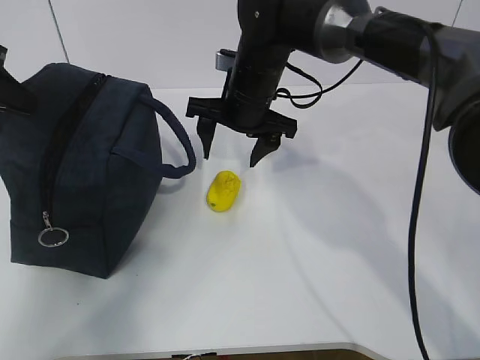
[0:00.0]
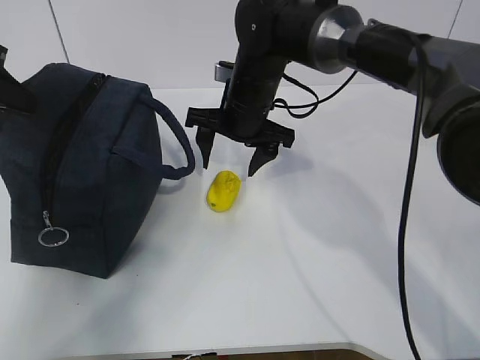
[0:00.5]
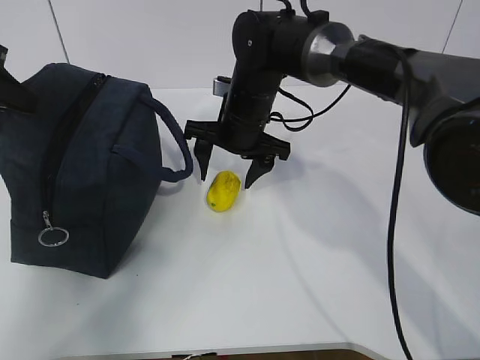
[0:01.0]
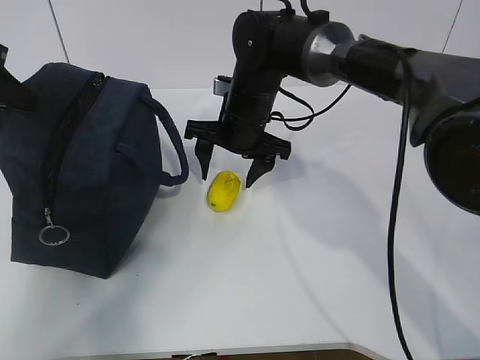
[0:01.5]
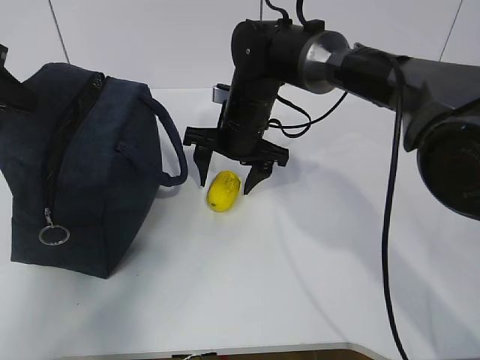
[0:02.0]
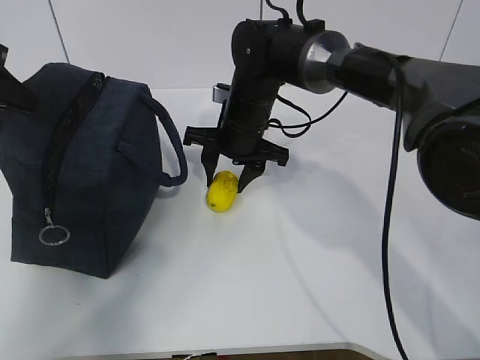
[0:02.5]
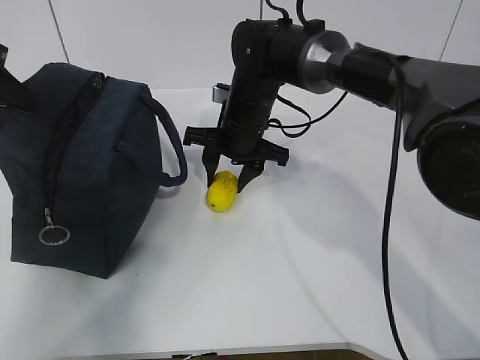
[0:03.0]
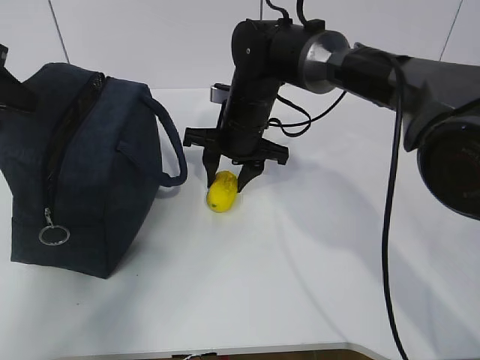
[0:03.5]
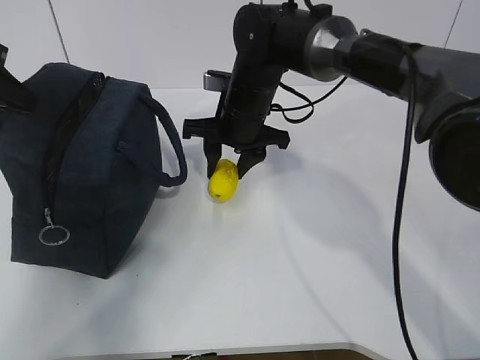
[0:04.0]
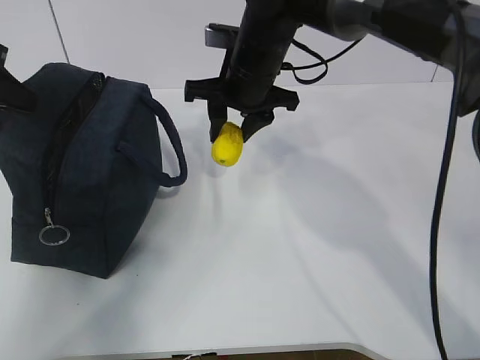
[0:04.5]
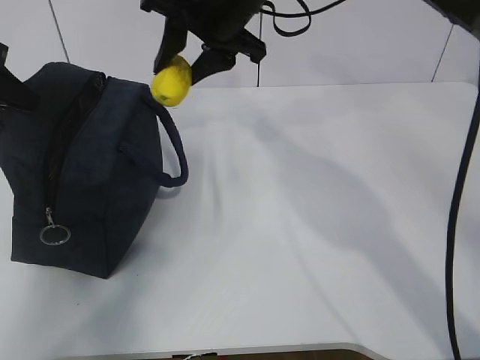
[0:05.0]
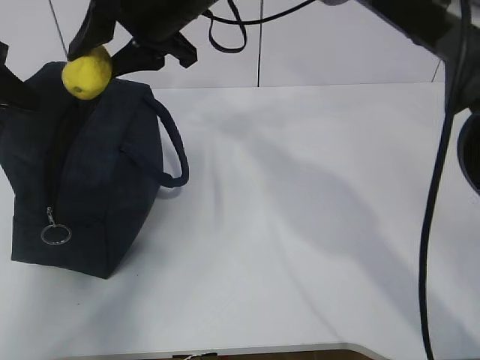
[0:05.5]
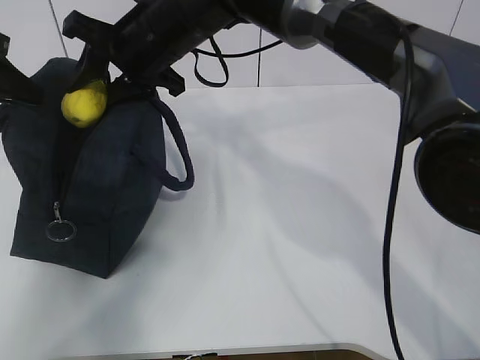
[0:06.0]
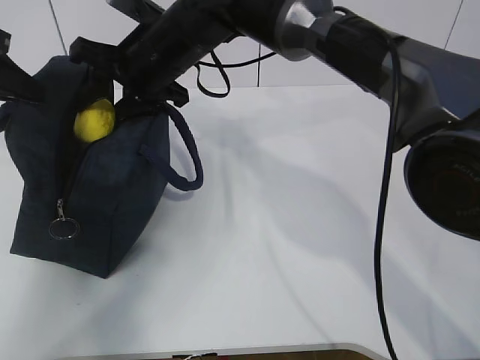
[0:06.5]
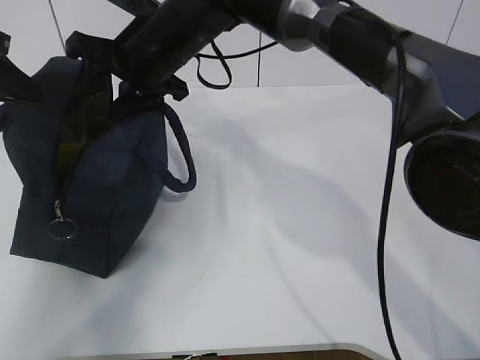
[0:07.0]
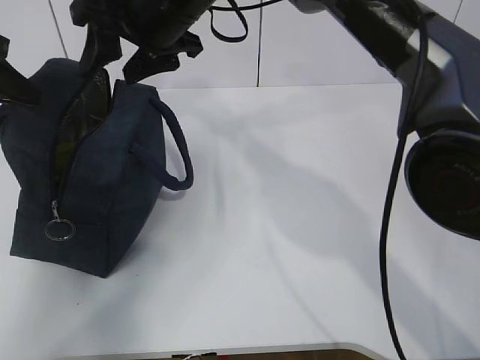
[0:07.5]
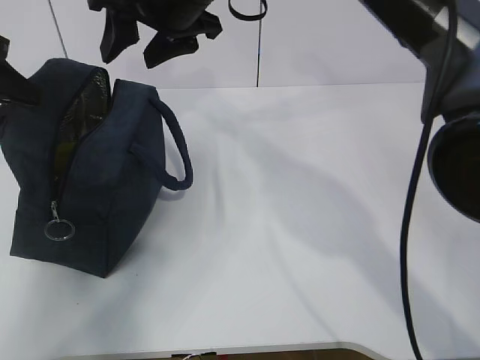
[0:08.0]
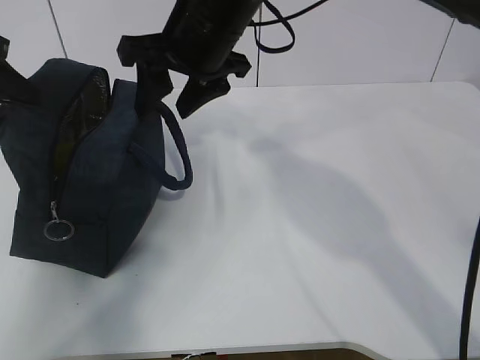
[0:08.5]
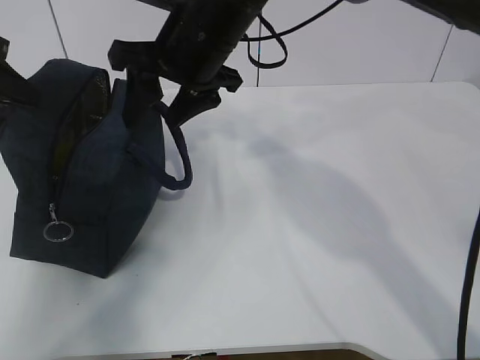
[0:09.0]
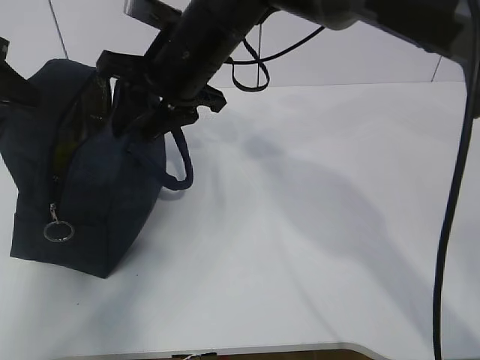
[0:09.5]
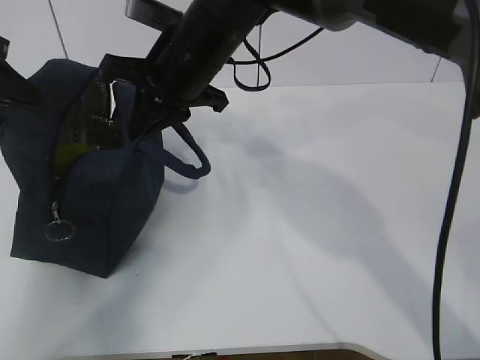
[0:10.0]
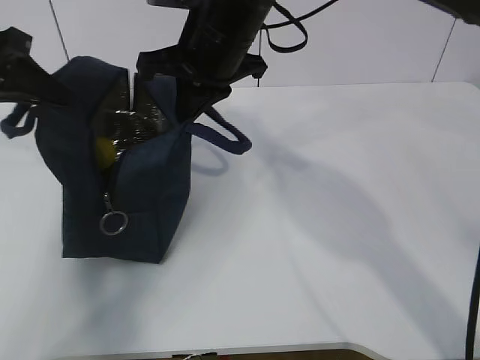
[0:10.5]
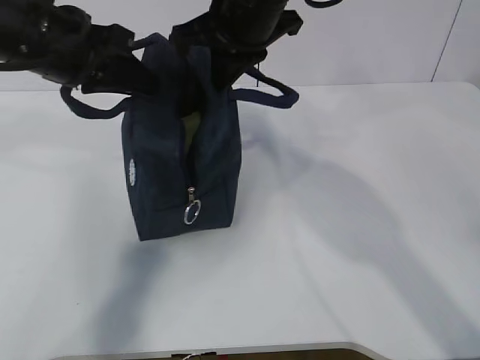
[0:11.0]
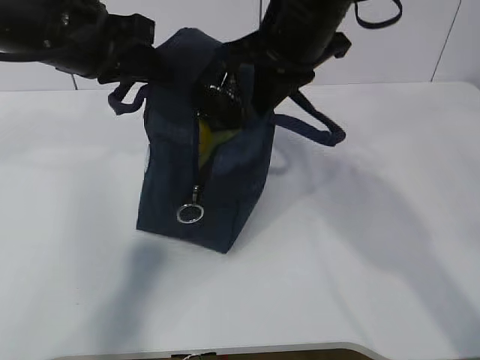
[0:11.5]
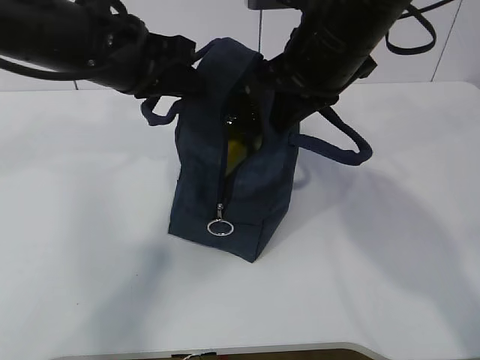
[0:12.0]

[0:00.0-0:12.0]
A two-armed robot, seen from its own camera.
Step, 0:01.0 to 0:03.0: Grab the lunch bag with your right hand.
Step, 0:03.5 to 0:06.5: Move the lunch bag to the right.
0:00.0 to 0:02.0: There are only small adjustments of the grippers.
0:02.0 to 0:04.0: The right gripper closes up.
0:04.0 to 0:06.0: The right gripper travels upward and to the left by roughly 15 cm.
0:06.0 to 0:08.0: The right gripper shifts by approximately 5 cm.
0:08.0 to 0:10.0: The right gripper moves downward, approximately 5 cm, and closes up.
0:10.0 to 0:12.0: The left gripper goes about 20 cm to the right. The right gripper is displaced to the right and backward by roughly 15 cm.

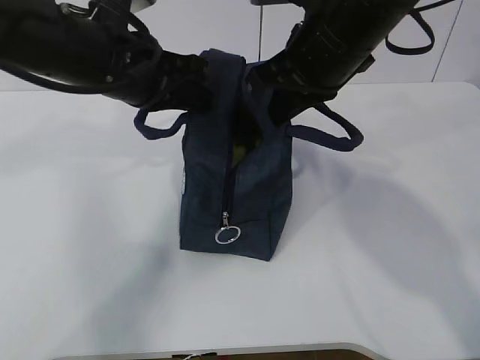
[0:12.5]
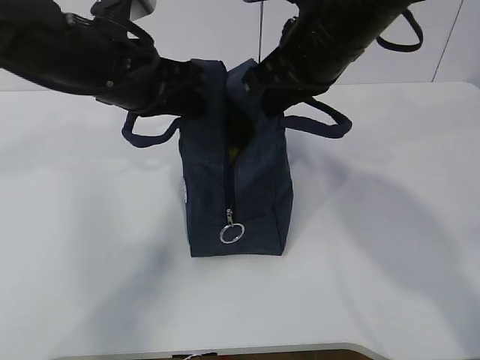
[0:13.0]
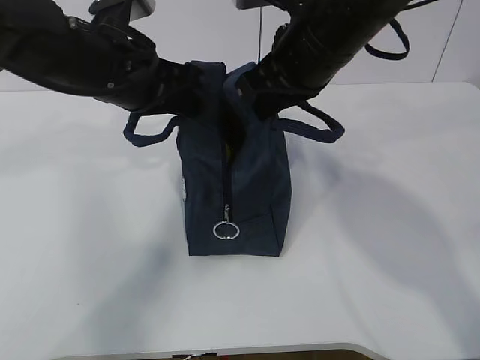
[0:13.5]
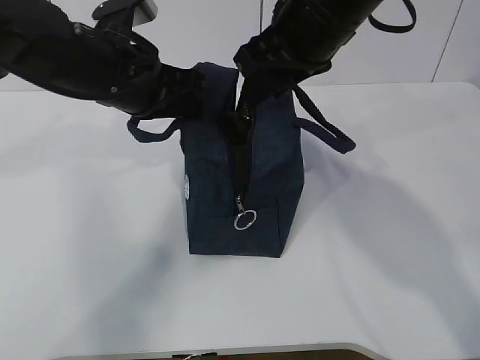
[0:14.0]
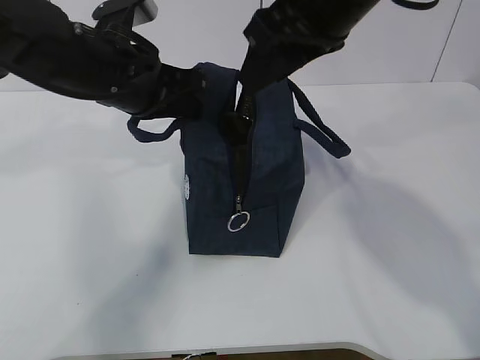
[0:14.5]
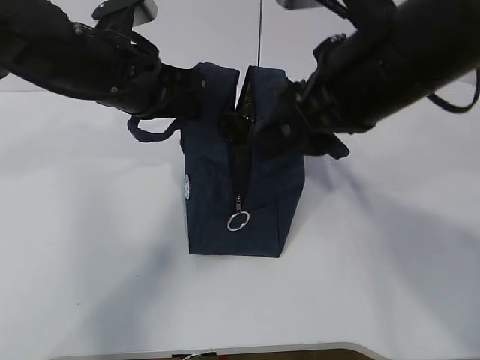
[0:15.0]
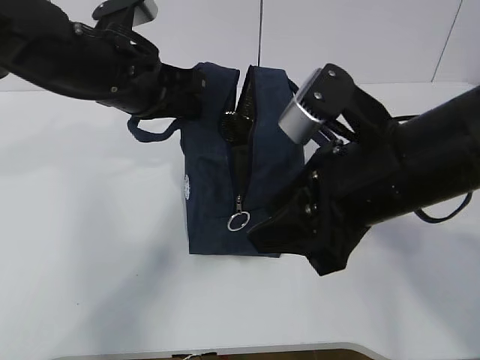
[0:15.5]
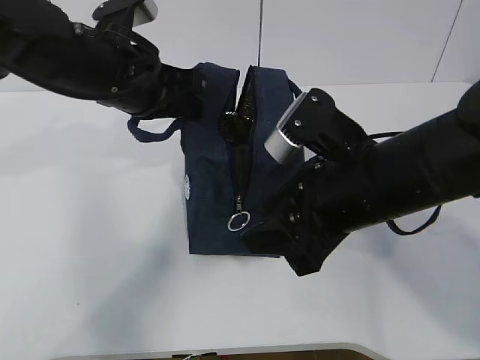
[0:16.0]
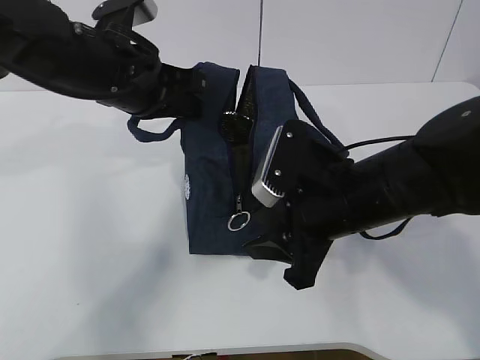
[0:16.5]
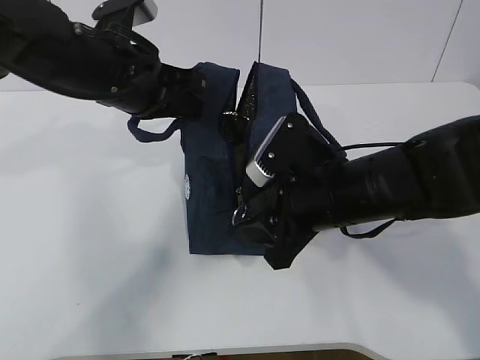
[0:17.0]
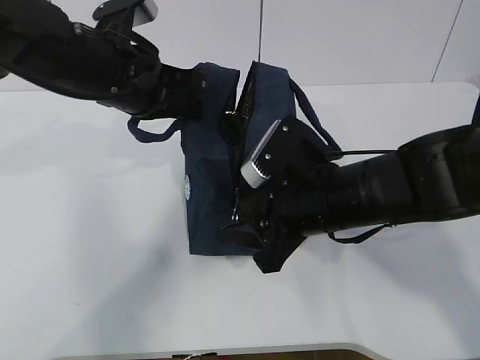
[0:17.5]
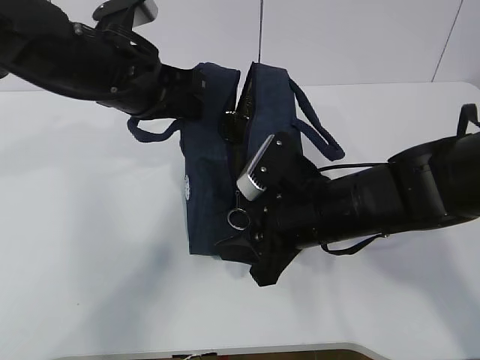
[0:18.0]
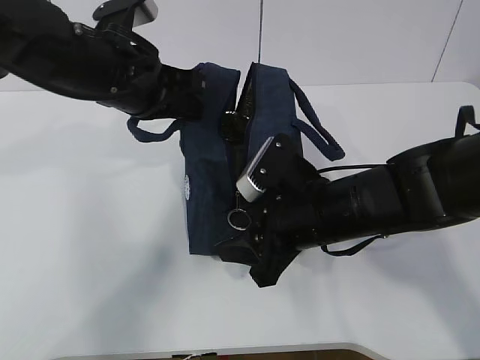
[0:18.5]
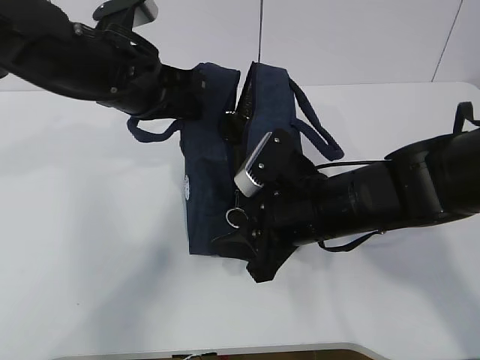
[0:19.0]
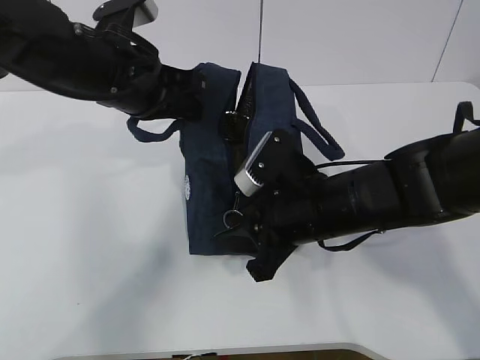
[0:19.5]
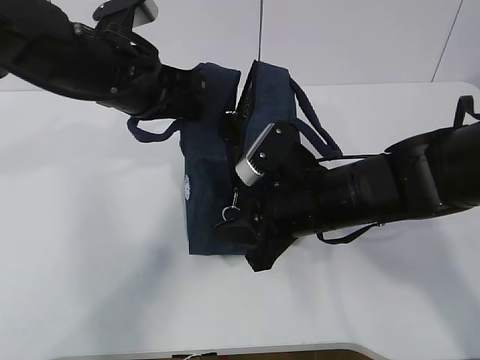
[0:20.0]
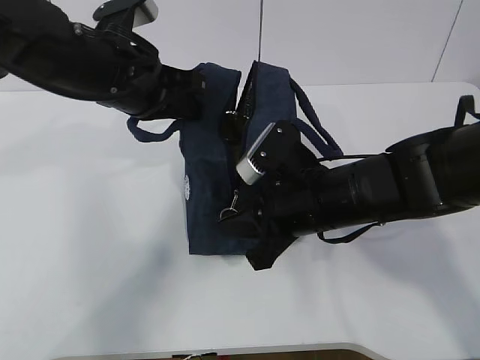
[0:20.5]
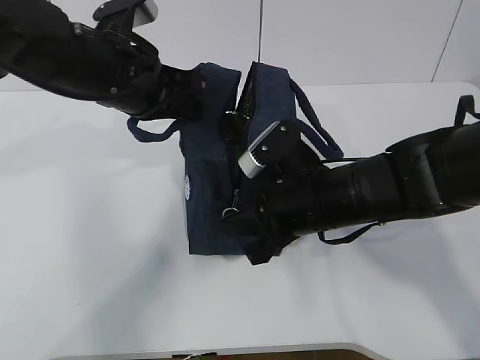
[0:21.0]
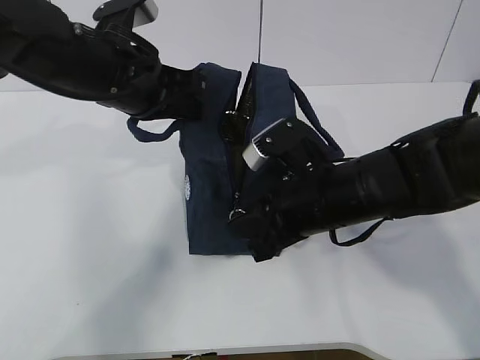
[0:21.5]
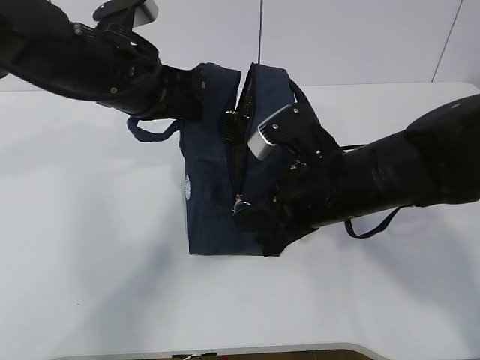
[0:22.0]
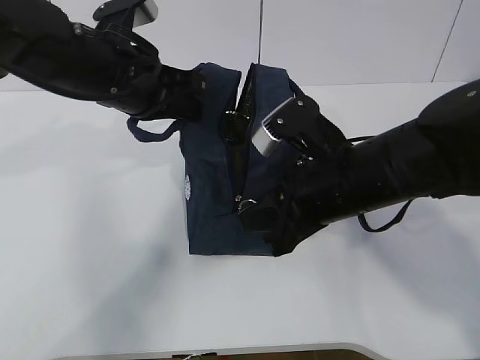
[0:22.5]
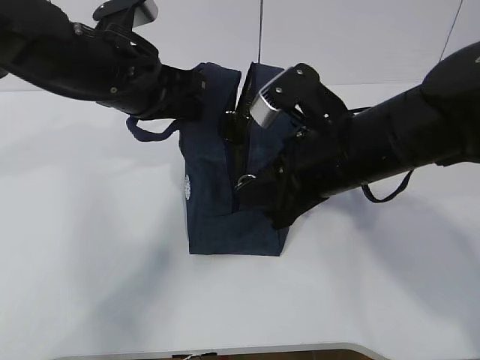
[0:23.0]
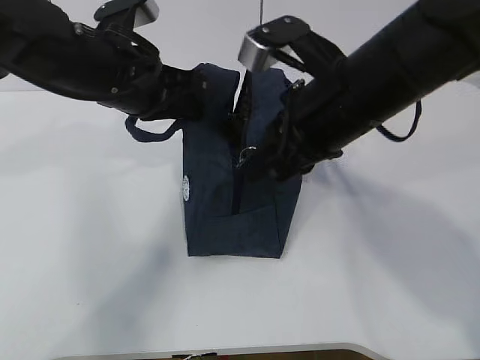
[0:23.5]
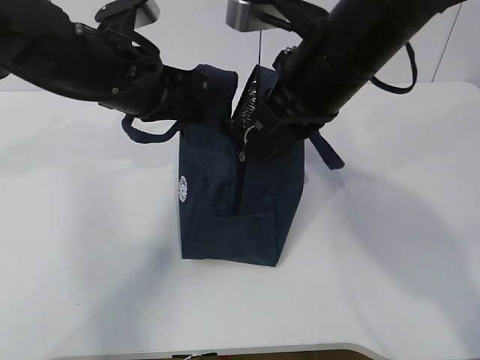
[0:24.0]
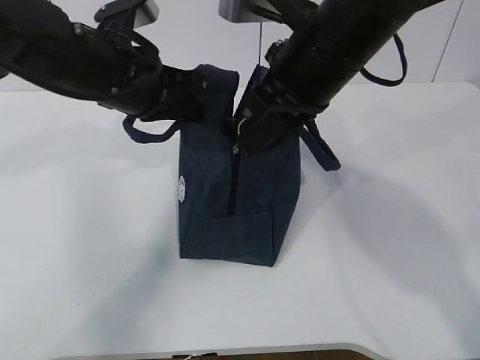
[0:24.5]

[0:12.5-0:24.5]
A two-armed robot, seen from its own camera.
0:12.5 to 0:14.5: The right gripper changes place by about 5 cm, and opens its fingers.
0:14.5 to 0:16.5: The right gripper shifts approximately 15 cm downward.
0:16.5 to 0:18.5: There are only small adjustments of the grippers.
0:18.5 to 0:20.5: The right gripper closes its fingers.
0:20.5 to 0:22.5: The grippers make only small movements.
0:22.5 to 0:24.5: The right gripper heads upward, covering about 10 cm.

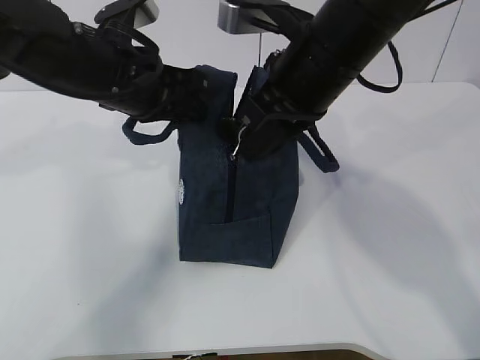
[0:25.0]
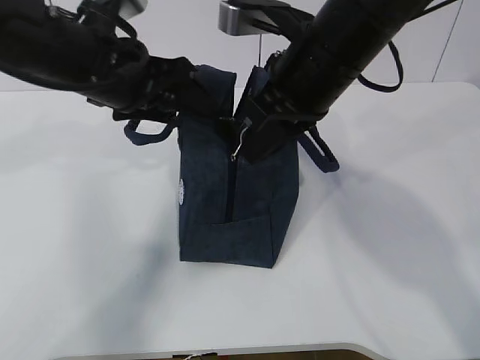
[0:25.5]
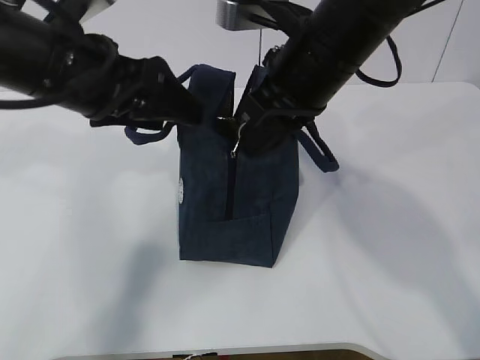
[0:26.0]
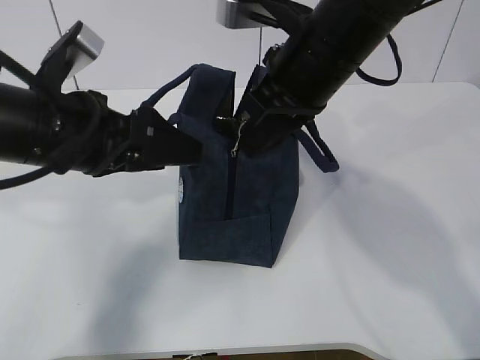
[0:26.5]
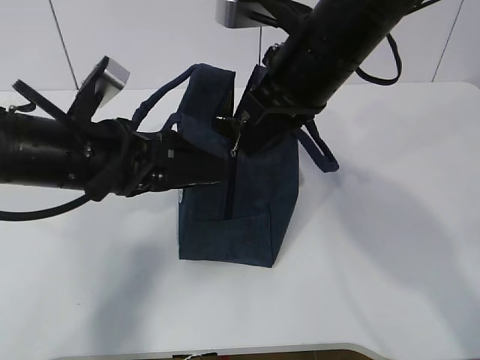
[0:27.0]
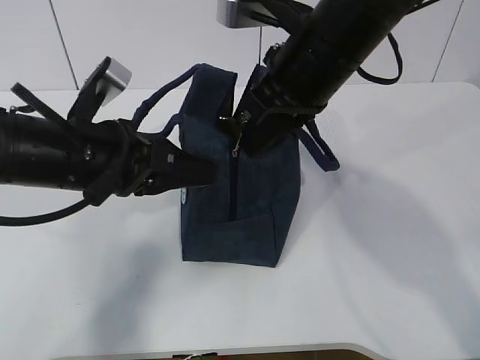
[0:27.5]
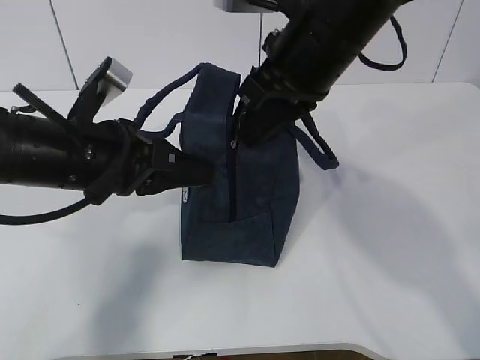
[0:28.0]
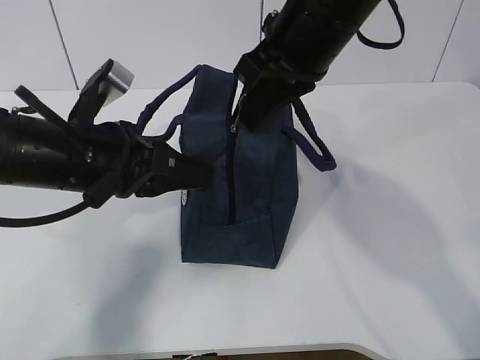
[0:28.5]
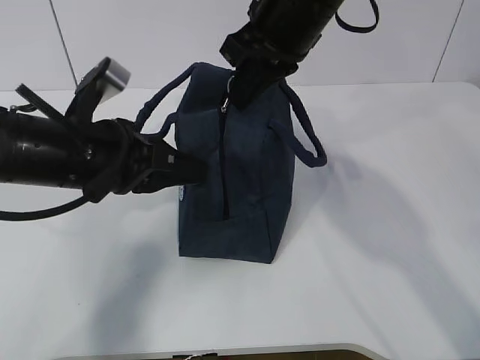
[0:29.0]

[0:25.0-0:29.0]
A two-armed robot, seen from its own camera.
Step, 0:25.0 to 0:27.0: Grab the lunch bag with your left hand.
0:25.0 to 0:27.0: The left gripper travels backward by roughly 5 cm, and opens its fingers.
0:27.0 to 0:29.0: The left gripper closes its fingers. Meanwhile the right gripper ends up approximately 5 cm from where it was.
